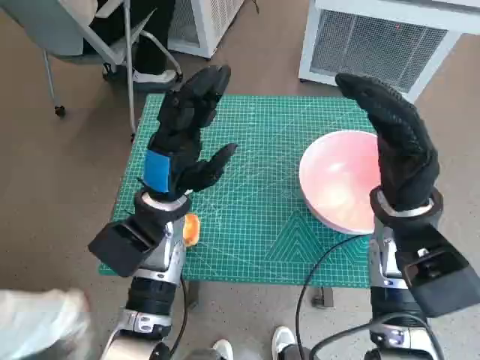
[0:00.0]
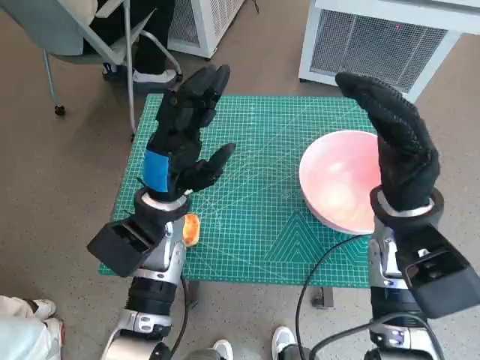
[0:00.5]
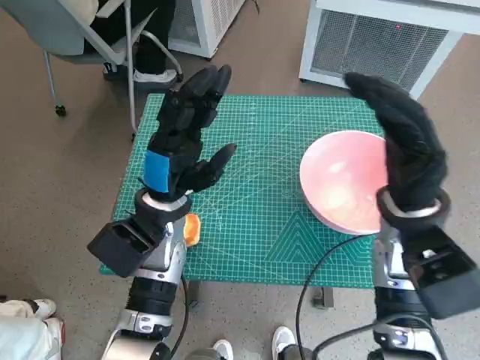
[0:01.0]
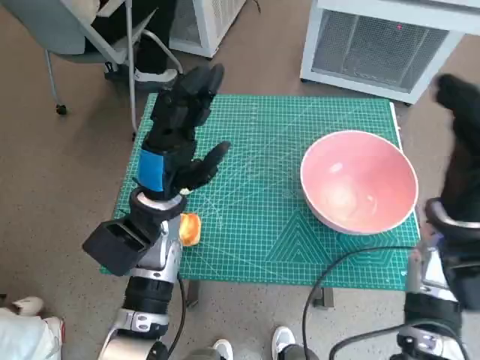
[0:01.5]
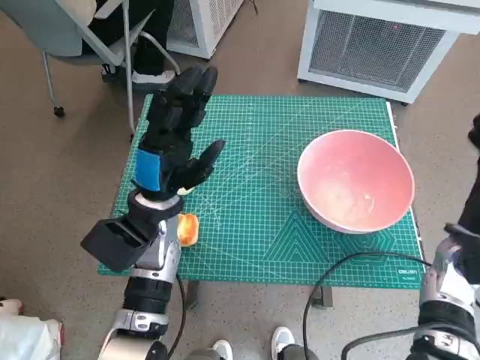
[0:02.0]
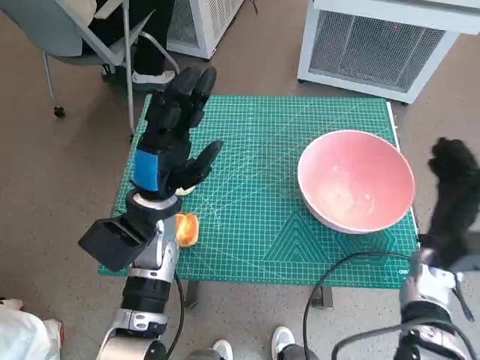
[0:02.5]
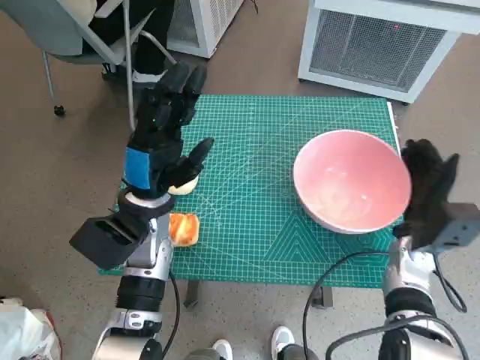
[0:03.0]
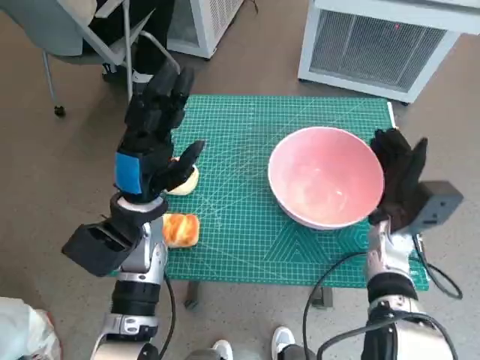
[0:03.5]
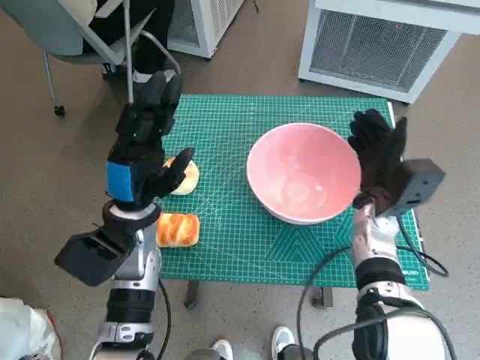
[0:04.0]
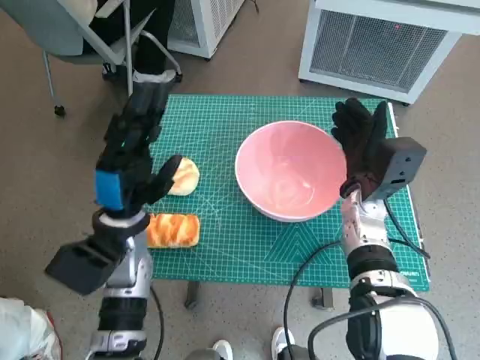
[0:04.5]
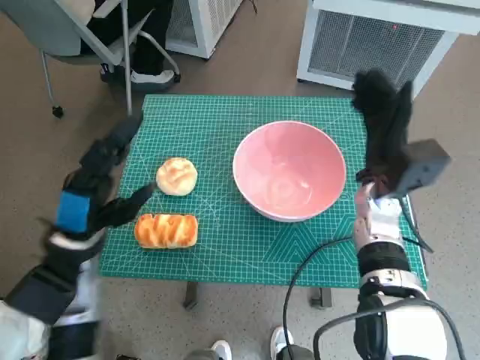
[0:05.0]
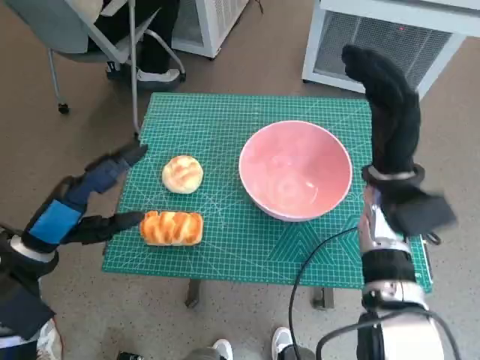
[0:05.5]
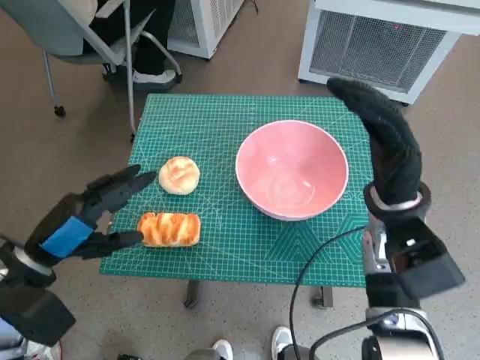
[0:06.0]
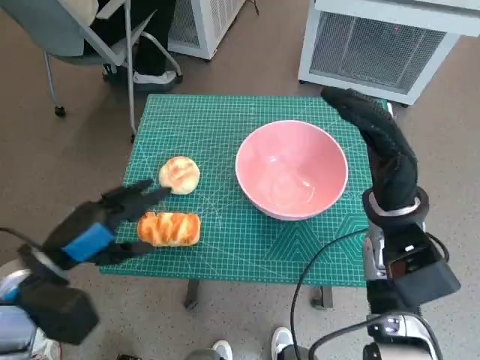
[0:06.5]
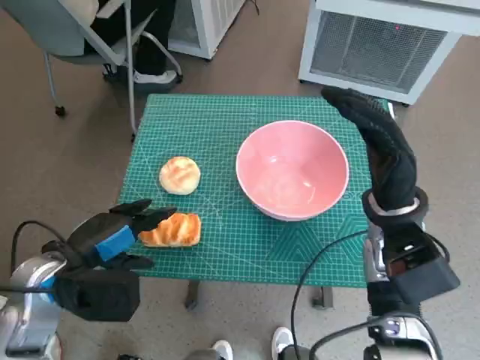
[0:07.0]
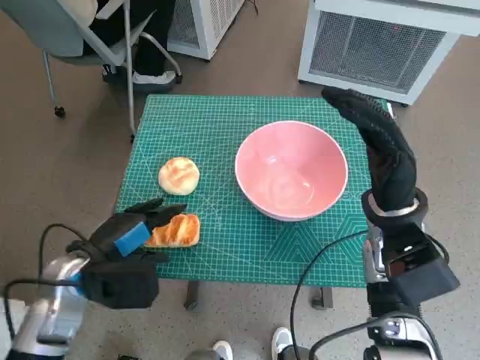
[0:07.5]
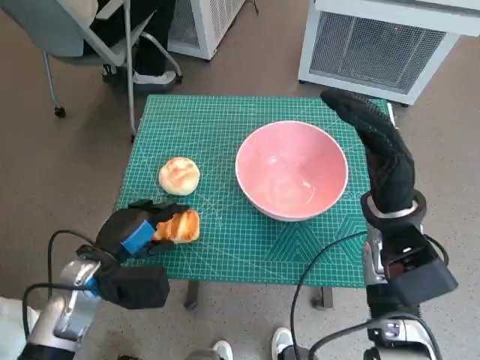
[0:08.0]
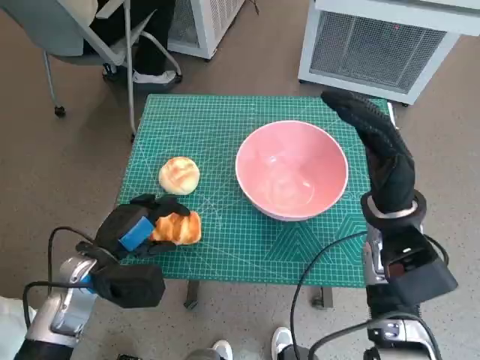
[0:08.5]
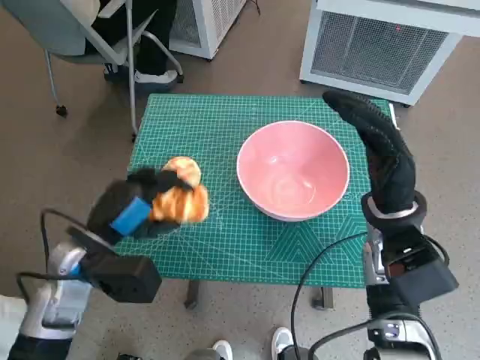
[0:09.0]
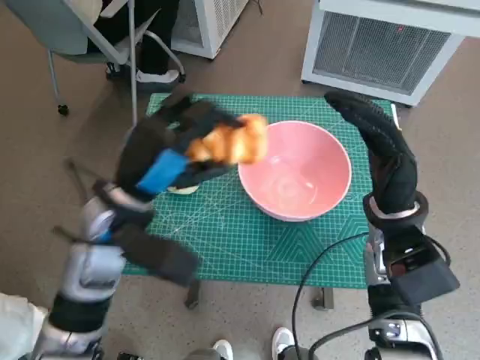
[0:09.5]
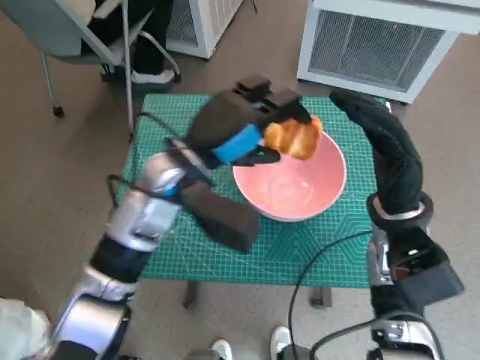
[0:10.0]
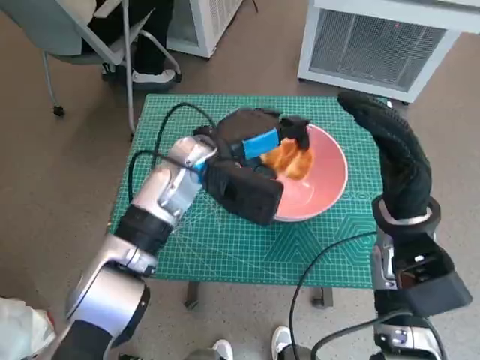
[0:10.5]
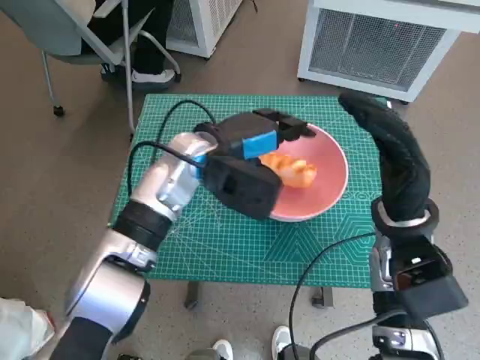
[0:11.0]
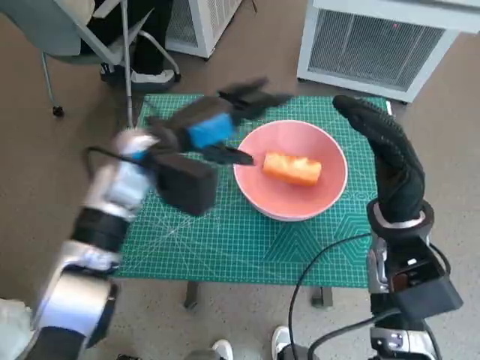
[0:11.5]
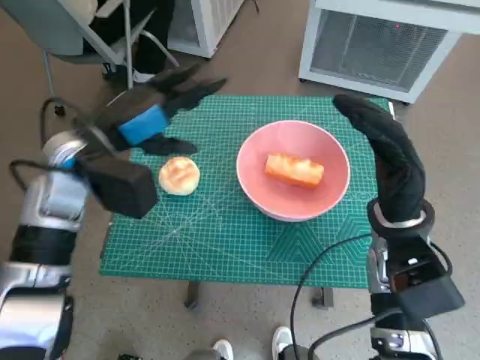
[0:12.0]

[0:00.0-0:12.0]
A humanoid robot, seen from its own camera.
Task of the whole recording: Push the bowl to the center of the table and put the bread into the bowl.
Step, 0:00.0 to 0:05.0: Move the pink bowl to the center of table with right hand.
Step, 0:05.5 to 0:08.0: Grasp the long bread with left hand.
Step, 0:08.5 to 0:11.0: Place the long bread in pink bowl with left hand.
0:02.0 to 0:04.0: The right hand moves to the left and forward, some 10 cm.
0:04.0 to 0:06.0: The left hand travels to the left and backward by about 15 cm. Meanwhile the right hand moves upward, some 10 cm.
0:06.0 to 0:08.0: The left hand moves downward and to the right, about 10 cm.
0:08.0 to 0:10.0: The left hand is displaced to the right, upward and forward by some 20 cm.
0:10.0 to 0:12.0: The left hand goes approximately 10 cm to the left.

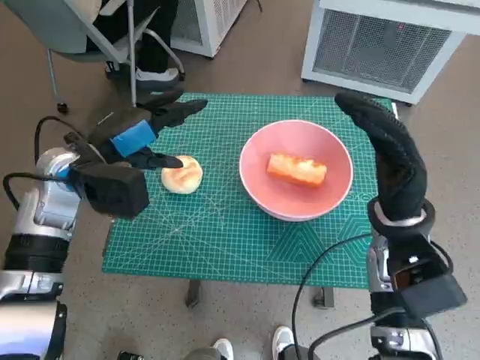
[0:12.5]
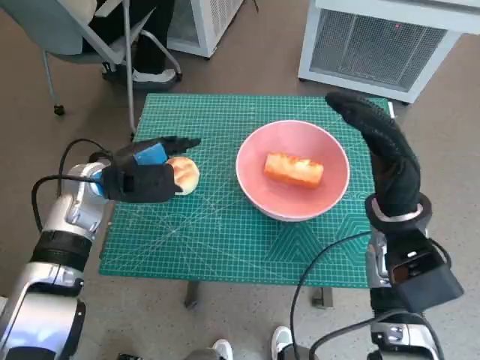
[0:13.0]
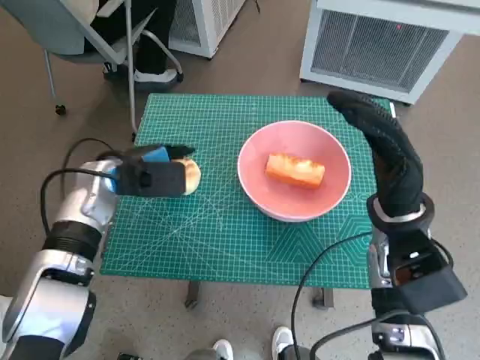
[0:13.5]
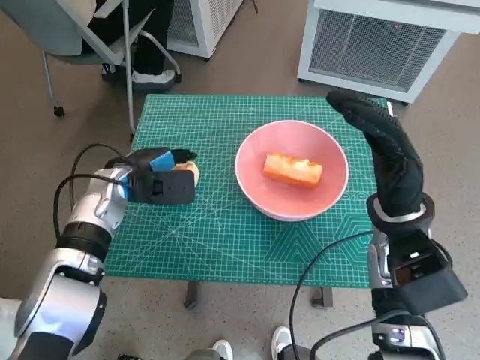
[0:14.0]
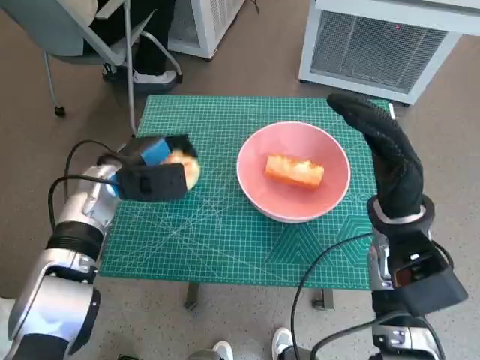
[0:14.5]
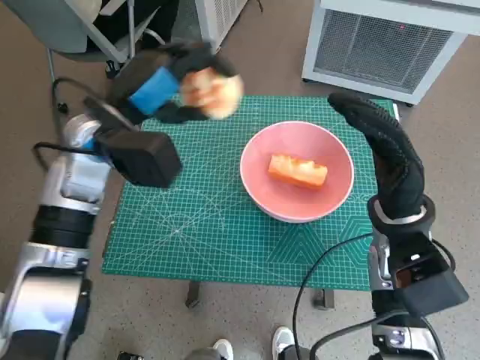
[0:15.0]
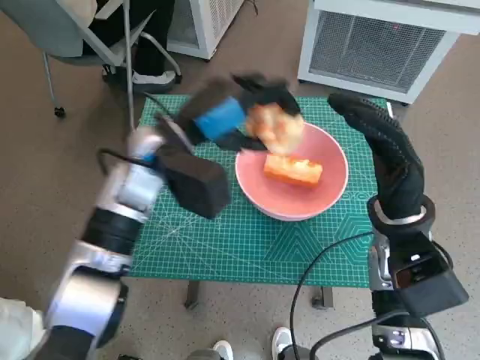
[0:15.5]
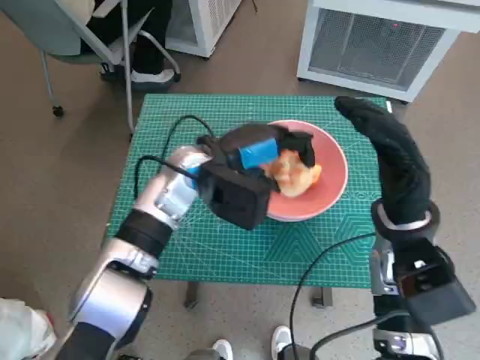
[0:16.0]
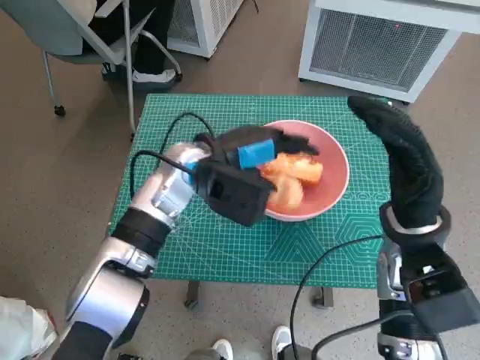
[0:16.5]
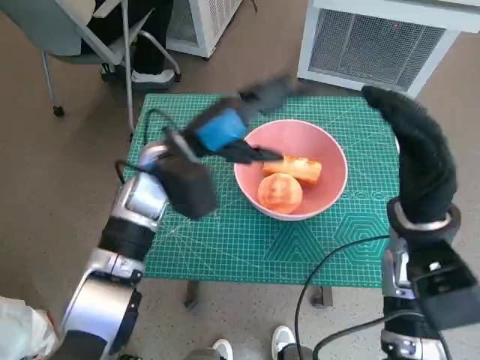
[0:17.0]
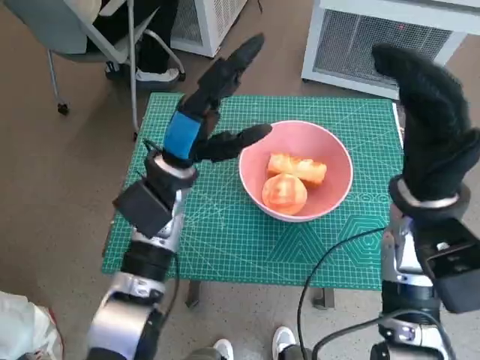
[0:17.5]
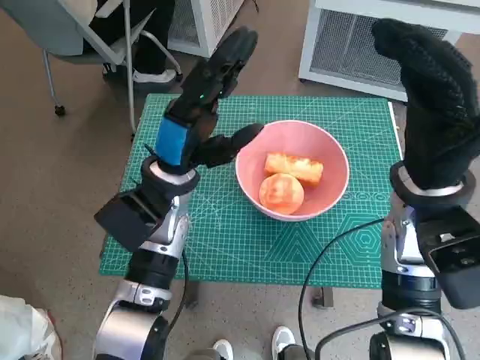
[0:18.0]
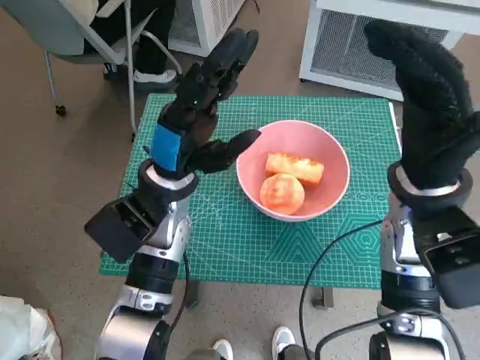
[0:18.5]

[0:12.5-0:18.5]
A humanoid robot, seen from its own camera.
Task of the whole recording: Push the bowl to the center of the table and put the bread into the bowl.
Step, 0:14.5 to 0:16.5: Place the round bread in pink bowl with left hand.
0:12.5 to 0:14.5: The left hand is displaced downward by roughly 5 cm.
0:14.5 to 0:16.5: The left hand travels to the right by approximately 15 cm.
0:16.5 to 0:18.5: The left hand ends up roughly 5 cm from where it was. The right hand goes approximately 5 cm upward.

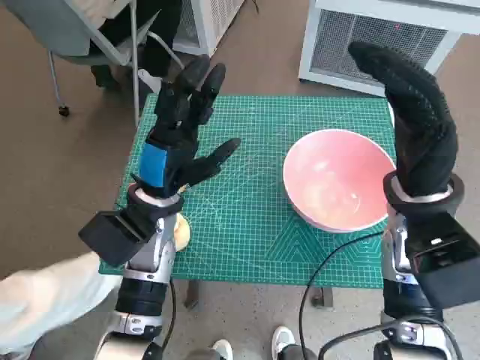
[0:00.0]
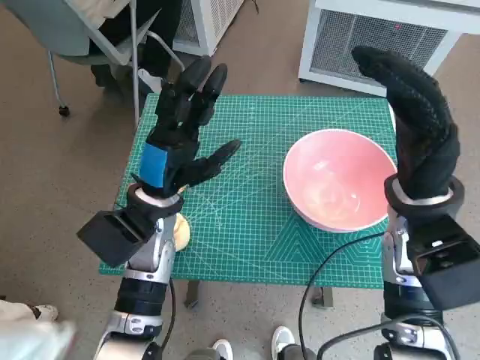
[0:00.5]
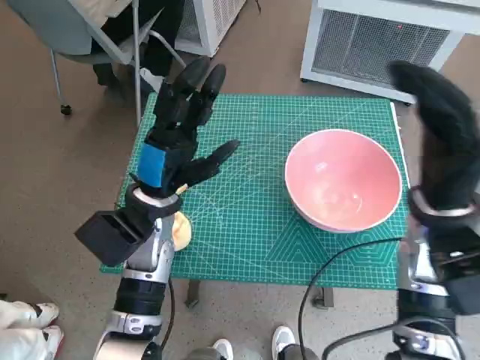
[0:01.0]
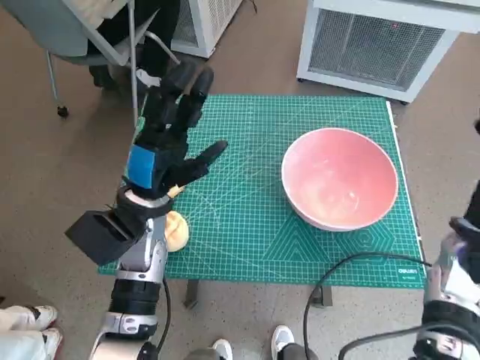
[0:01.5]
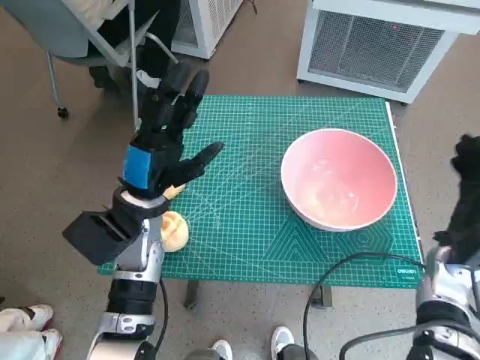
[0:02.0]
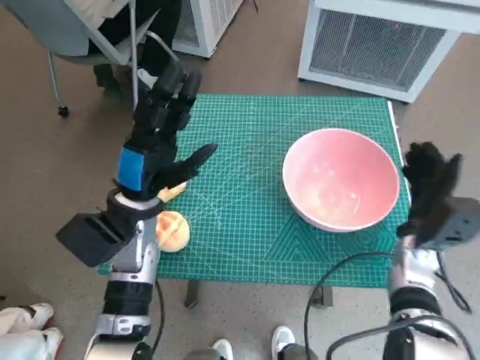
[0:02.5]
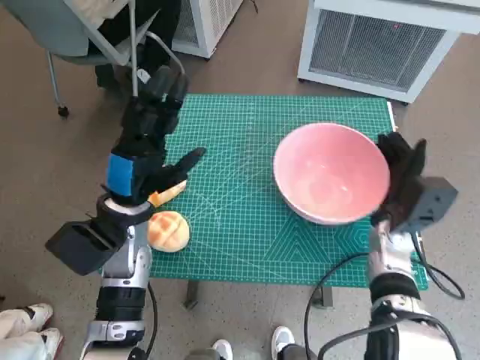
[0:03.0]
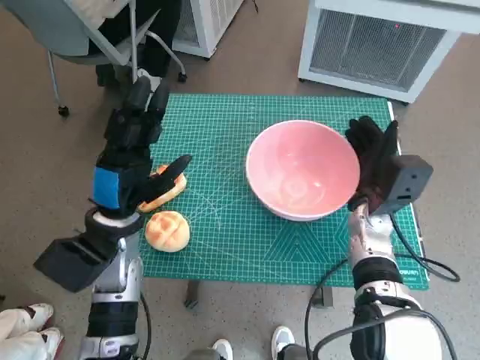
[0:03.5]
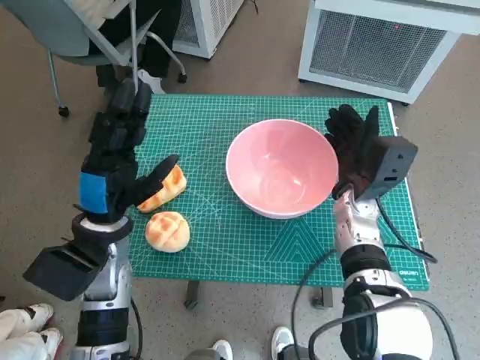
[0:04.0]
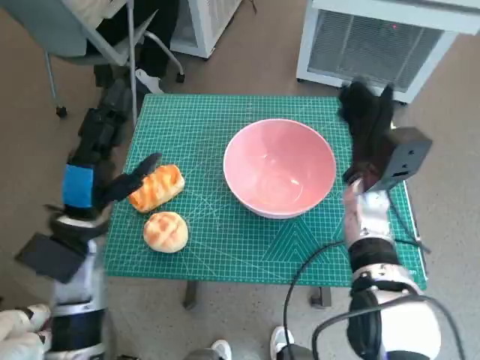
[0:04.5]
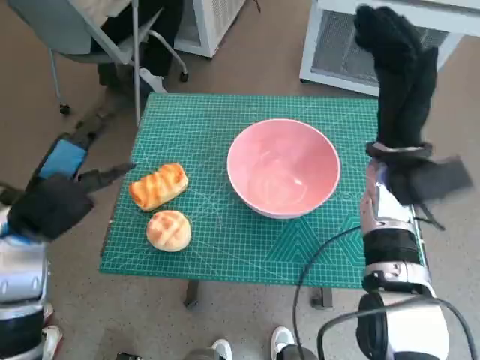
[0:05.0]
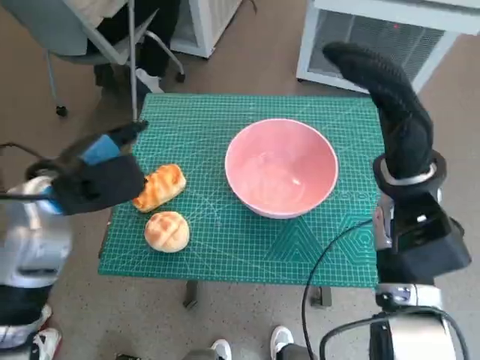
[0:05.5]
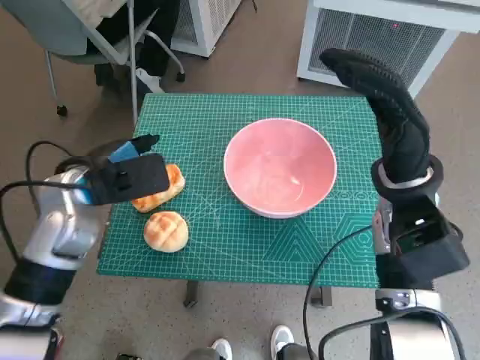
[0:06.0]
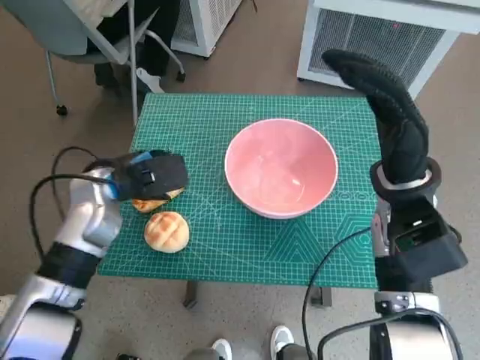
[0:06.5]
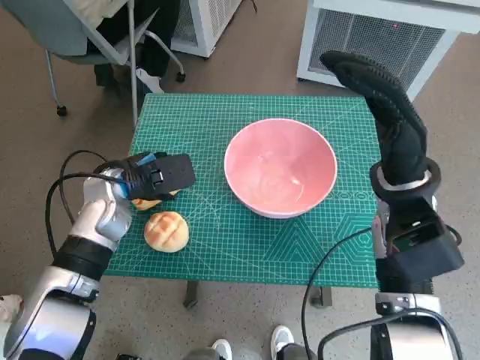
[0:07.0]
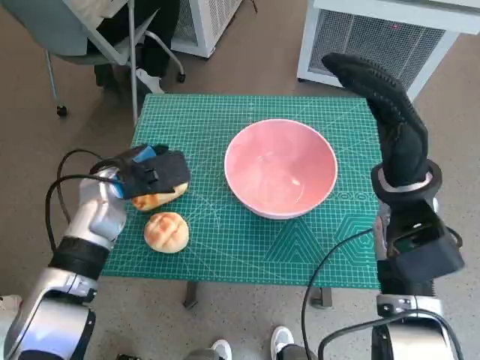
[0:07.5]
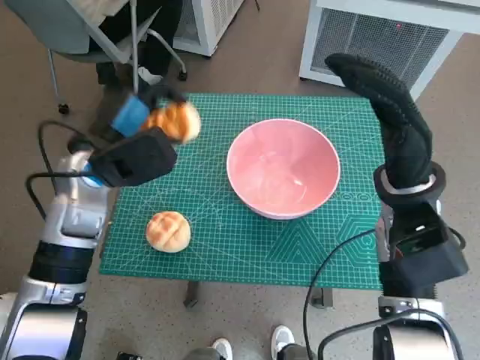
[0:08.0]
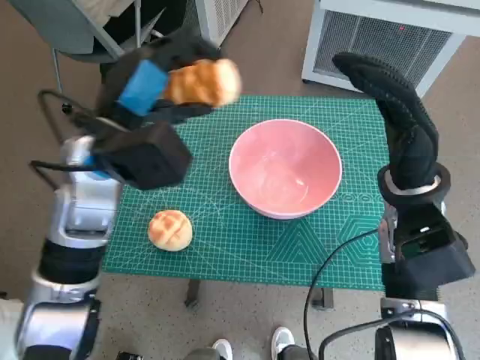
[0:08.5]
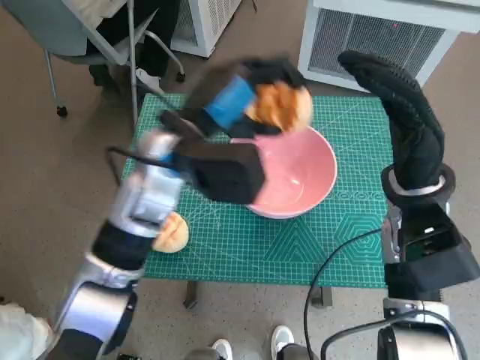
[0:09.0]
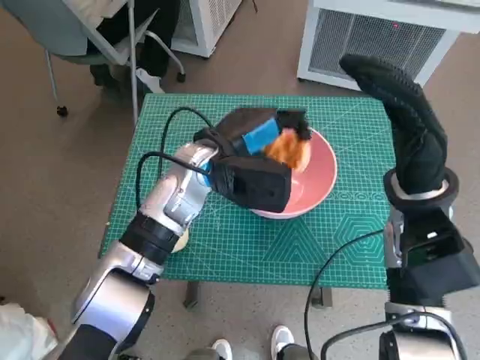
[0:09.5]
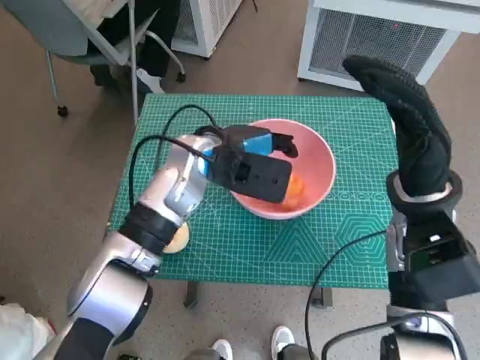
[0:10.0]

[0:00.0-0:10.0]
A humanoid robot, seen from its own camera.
Task of the whole recording: Push the bowl to the center of the table and put the bread into the bowl.
Step, 0:00.0 to 0:04.0: Move the pink bowl to the center of table with right hand.
Step, 0:05.0 to 0:07.0: Grasp the long bread with left hand.
0:02.0 to 0:04.0: The right hand shifts about 15 cm to the left and forward, while the left hand shifts by approximately 5 cm.
0:04.0 to 0:06.0: The right hand goes roughly 10 cm upward, while the left hand goes about 5 cm upward.
0:08.0 to 0:10.0: The left hand travels to the right by approximately 15 cm.
